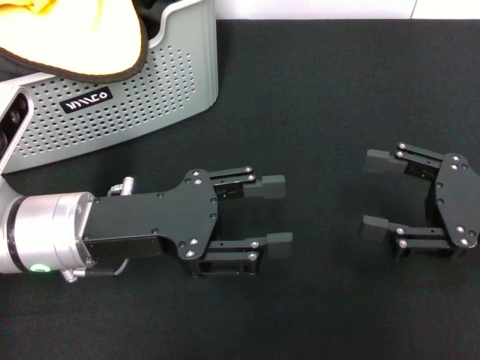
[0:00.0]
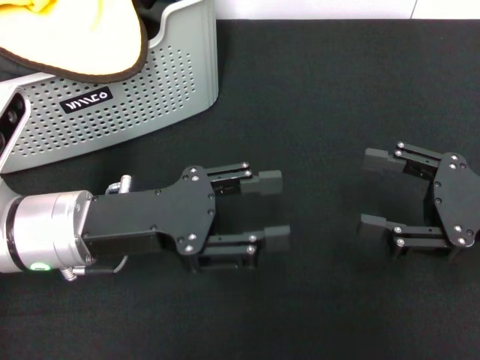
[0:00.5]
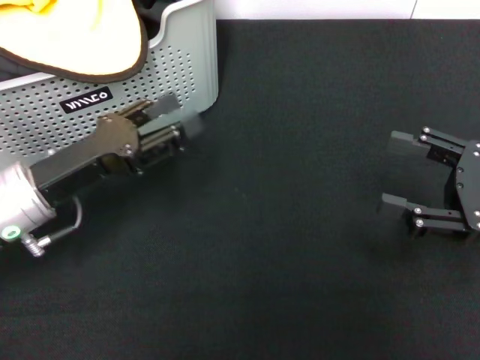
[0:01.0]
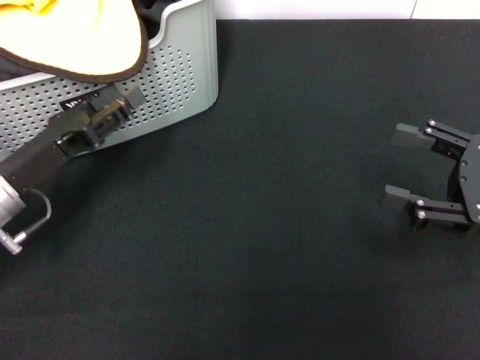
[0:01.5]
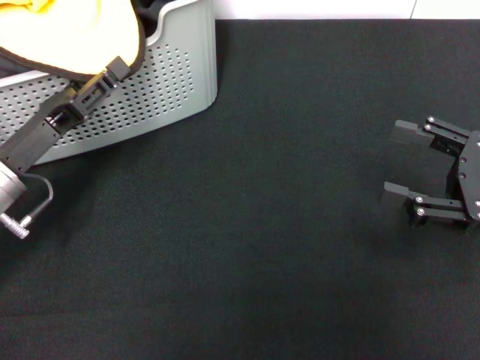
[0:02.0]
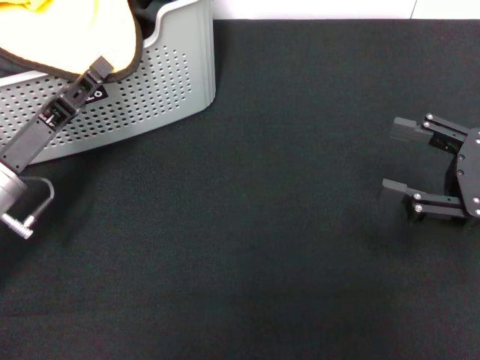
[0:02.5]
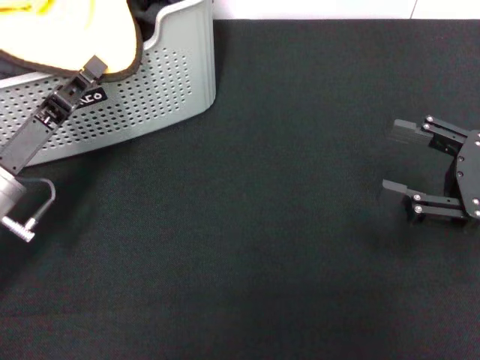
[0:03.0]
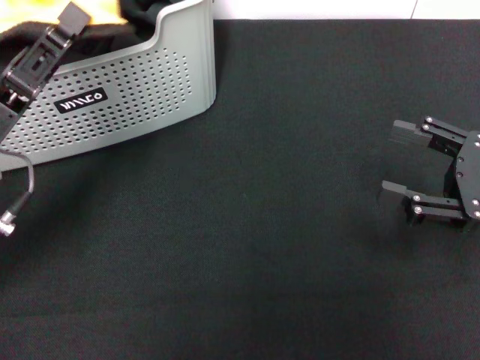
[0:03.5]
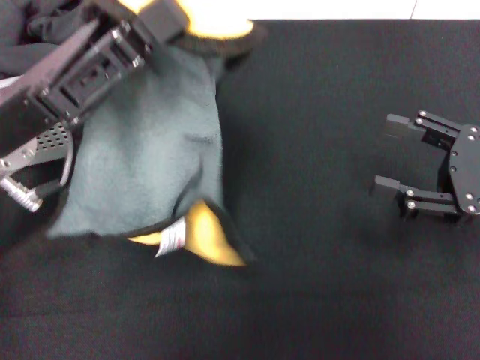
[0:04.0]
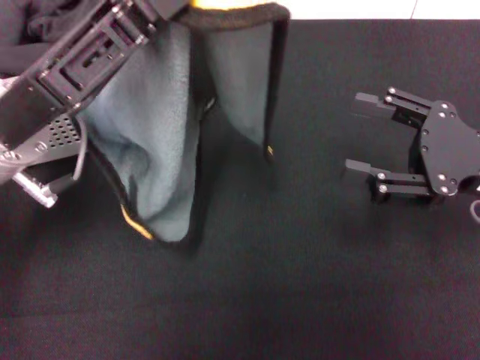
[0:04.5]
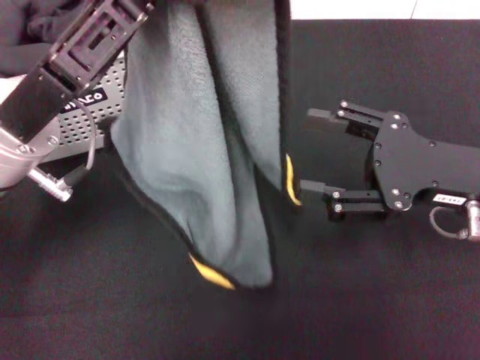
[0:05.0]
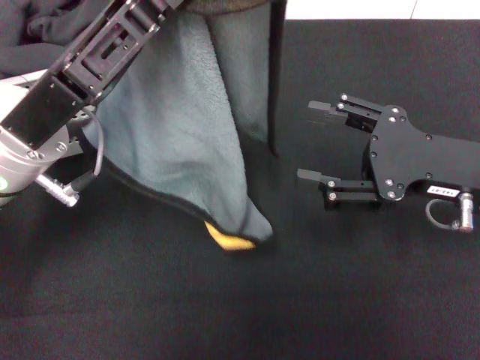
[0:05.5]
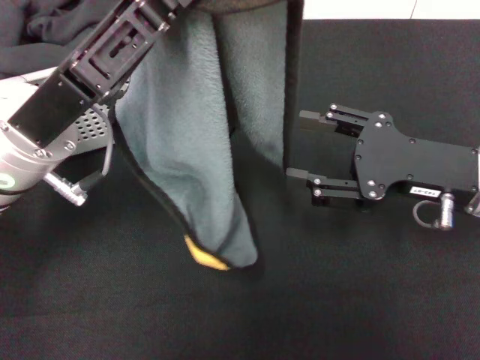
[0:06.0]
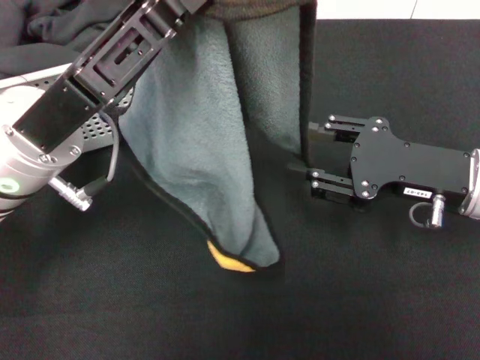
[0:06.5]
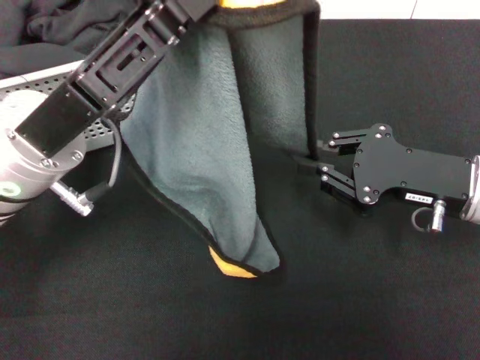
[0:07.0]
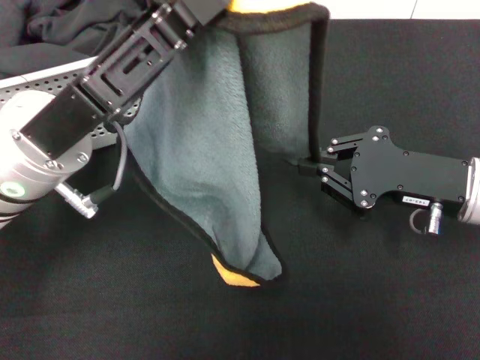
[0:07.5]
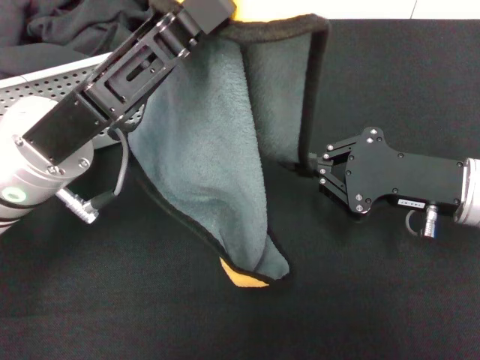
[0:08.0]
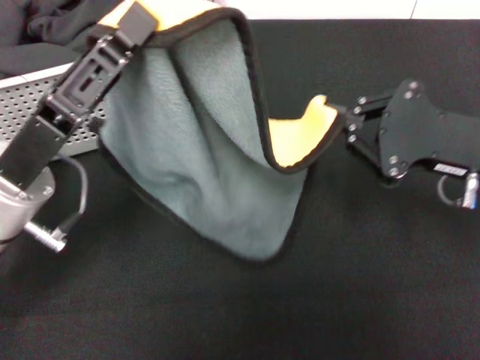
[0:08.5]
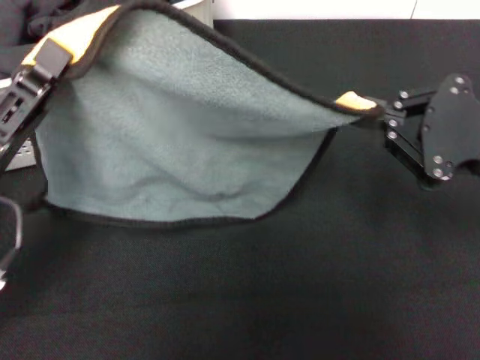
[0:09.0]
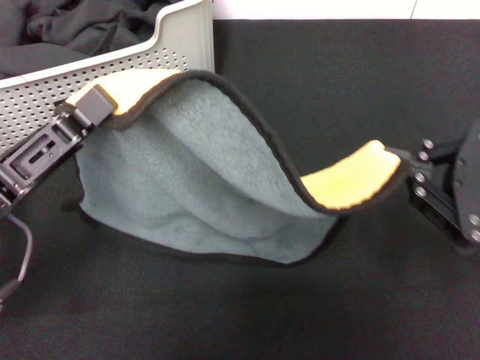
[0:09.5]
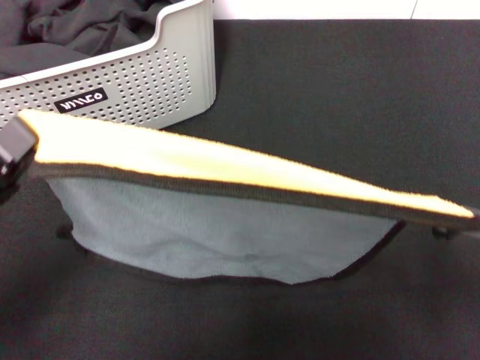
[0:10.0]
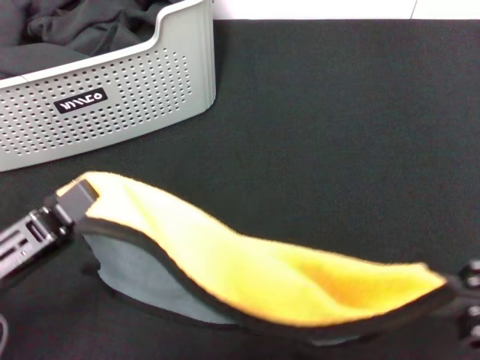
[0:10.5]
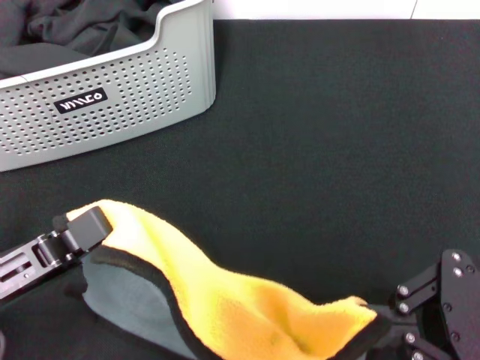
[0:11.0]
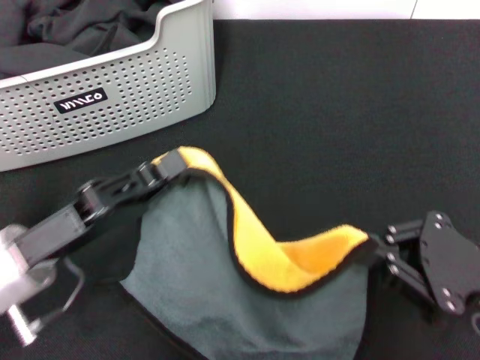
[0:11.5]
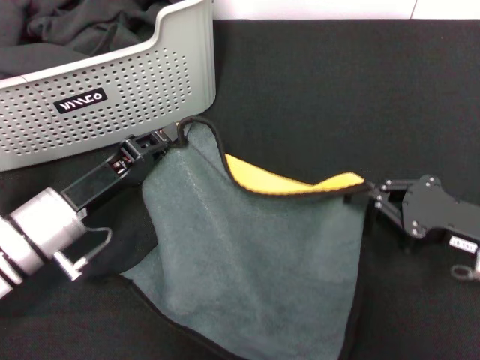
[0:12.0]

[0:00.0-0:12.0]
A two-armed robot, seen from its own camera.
Task of the whole recording: pick up the towel from the storage box and lay it flat on the black tablecloth.
Step, 0:00.0 to 0:02.5: Pick up a towel with the left gripper.
Step, 0:03.0 to 0:07.5: Spread the towel flat with the left gripper.
0:00.0 to 0:02.0: The left gripper heads to the left, covering about 10 cm.
0:02.0 to 0:04.0: The left gripper shifts about 10 cm upward and to the right, and closes.
0:04.0 to 0:06.0: The right gripper goes about 5 cm to the left.
0:06.0 to 0:08.0: The right gripper closes up.
0:08.0 to 0:10.0: The left gripper moves to the left and backward, approximately 15 cm, while the right gripper moves backward, to the right and upward, some 20 cm.
0:10.0 to 0:12.0: The right gripper travels downward and forward by some 15 cm; the left gripper shifts roughly 15 cm forward, downward and to the right.

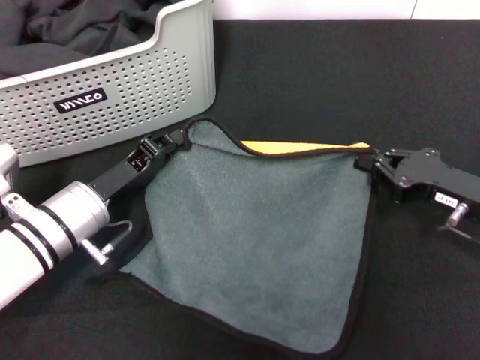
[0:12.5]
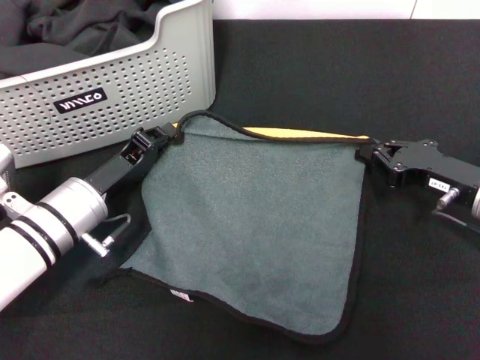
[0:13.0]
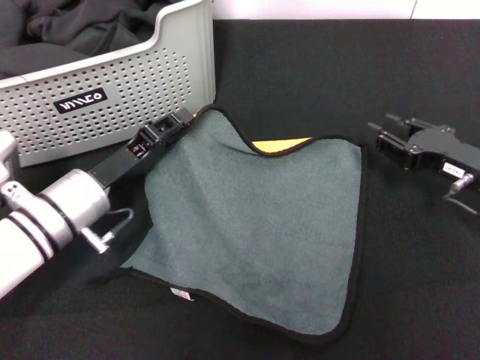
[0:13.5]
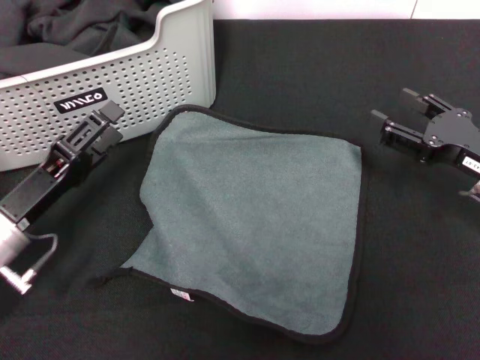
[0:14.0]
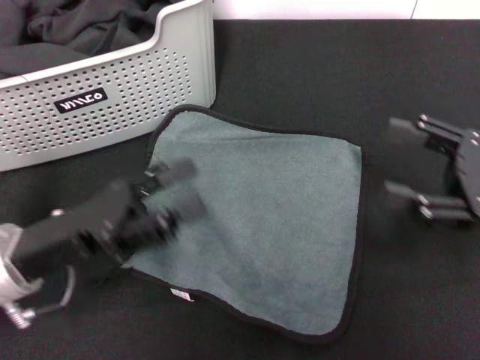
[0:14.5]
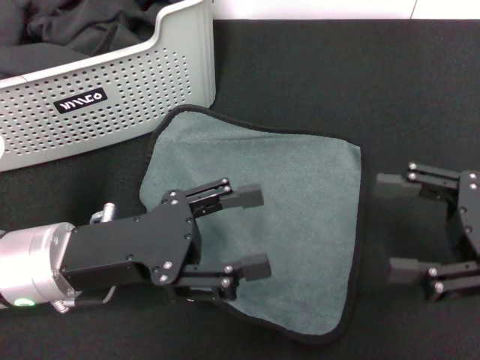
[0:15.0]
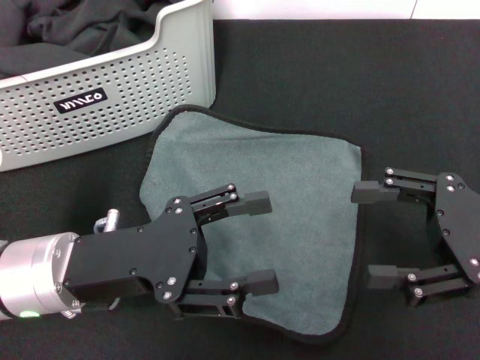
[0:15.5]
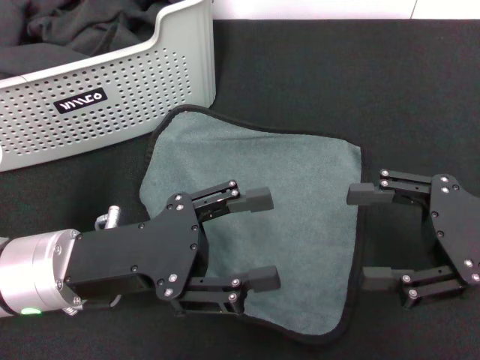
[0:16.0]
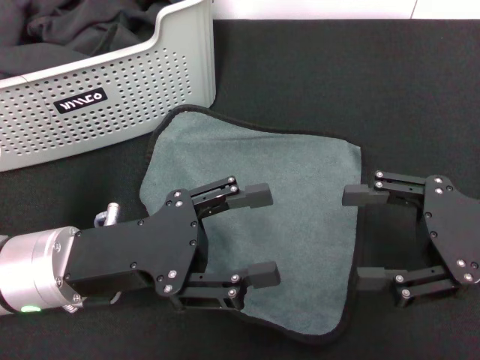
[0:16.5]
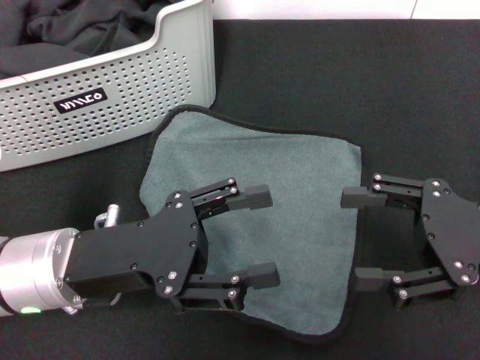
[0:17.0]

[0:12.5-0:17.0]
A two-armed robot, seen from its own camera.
Task of the whole recording: pick up the towel from the storage box and lay it flat on the black tablecloth.
0:12.5 to 0:14.5: The right gripper is displaced upward by roughly 5 cm, and opens up, while the left gripper shifts roughly 10 cm backward and upward, and opens.
